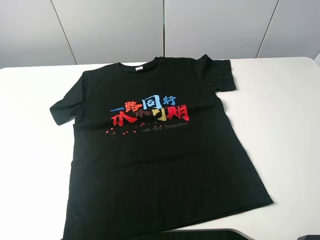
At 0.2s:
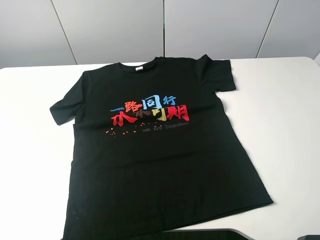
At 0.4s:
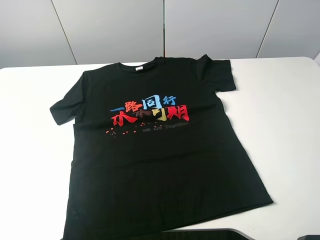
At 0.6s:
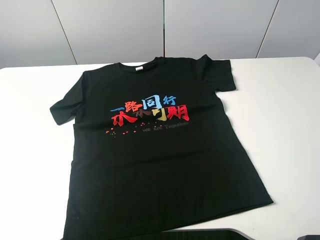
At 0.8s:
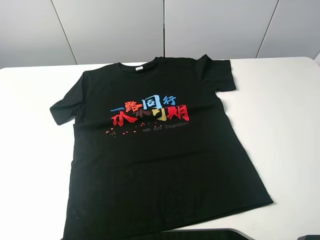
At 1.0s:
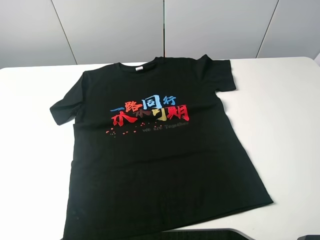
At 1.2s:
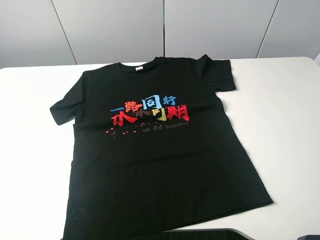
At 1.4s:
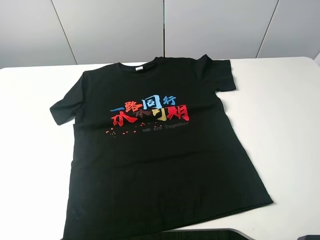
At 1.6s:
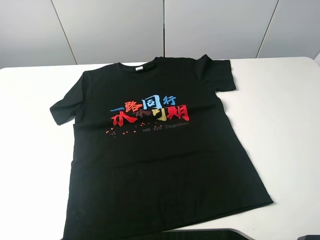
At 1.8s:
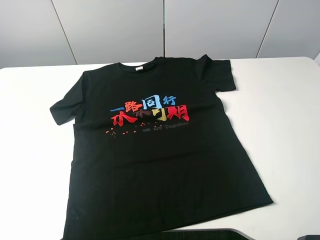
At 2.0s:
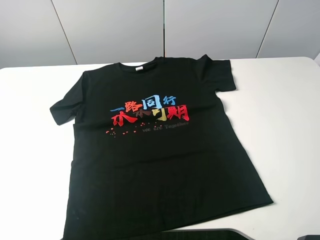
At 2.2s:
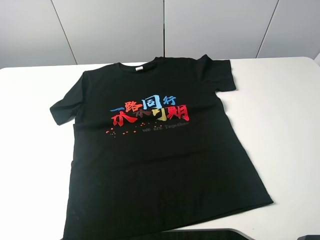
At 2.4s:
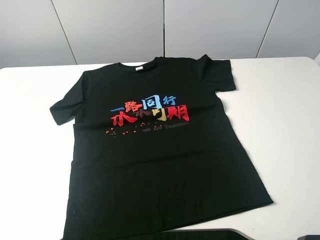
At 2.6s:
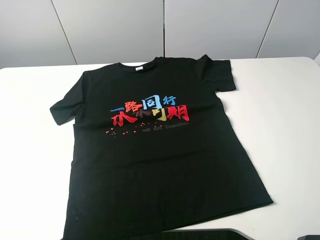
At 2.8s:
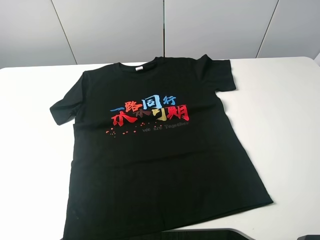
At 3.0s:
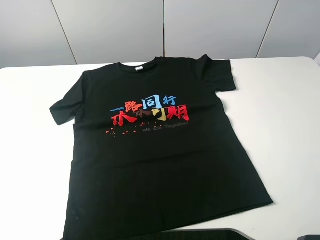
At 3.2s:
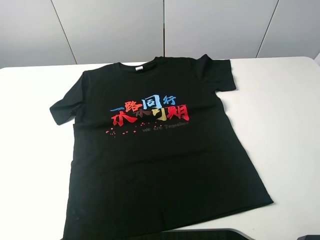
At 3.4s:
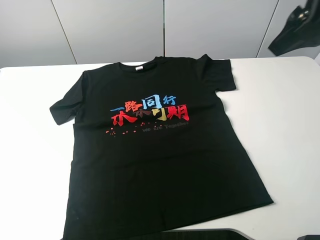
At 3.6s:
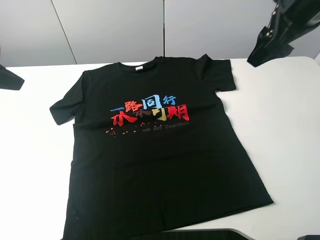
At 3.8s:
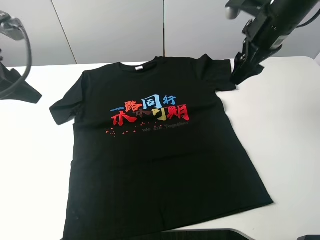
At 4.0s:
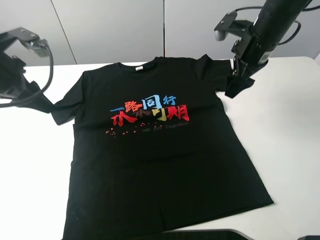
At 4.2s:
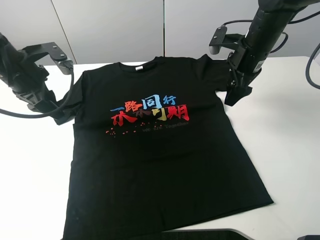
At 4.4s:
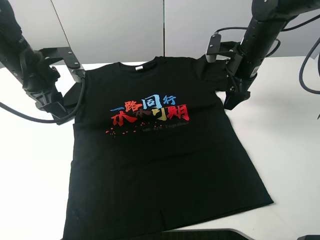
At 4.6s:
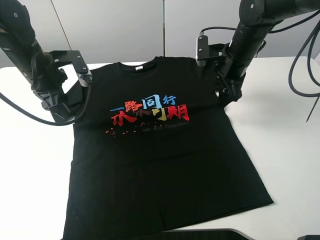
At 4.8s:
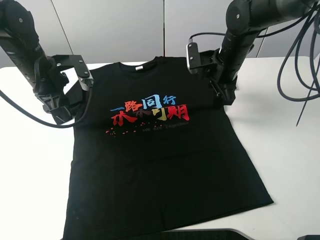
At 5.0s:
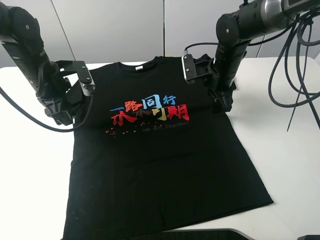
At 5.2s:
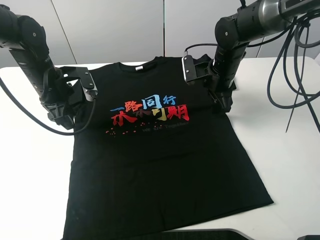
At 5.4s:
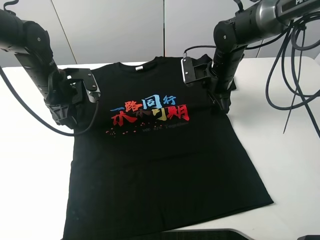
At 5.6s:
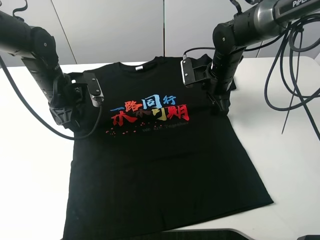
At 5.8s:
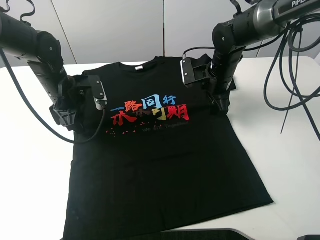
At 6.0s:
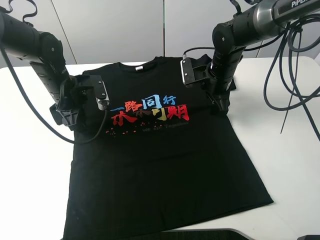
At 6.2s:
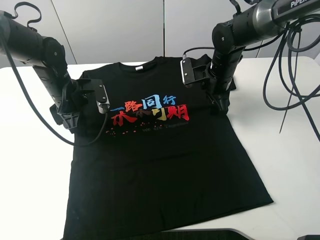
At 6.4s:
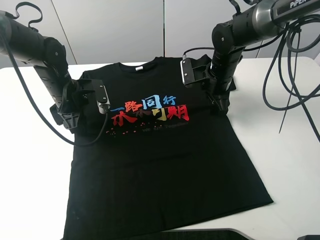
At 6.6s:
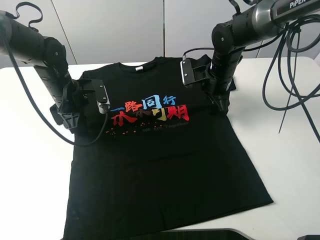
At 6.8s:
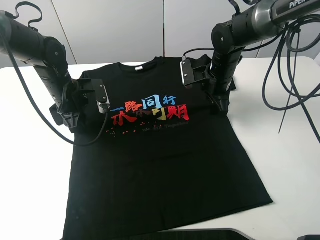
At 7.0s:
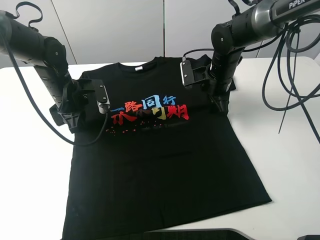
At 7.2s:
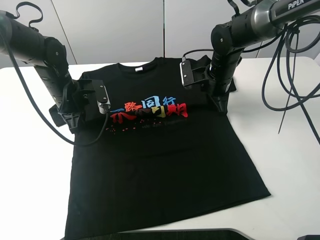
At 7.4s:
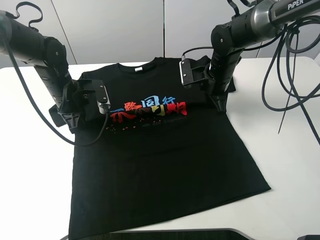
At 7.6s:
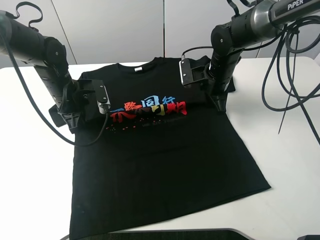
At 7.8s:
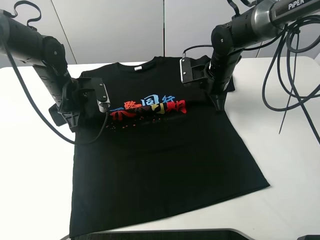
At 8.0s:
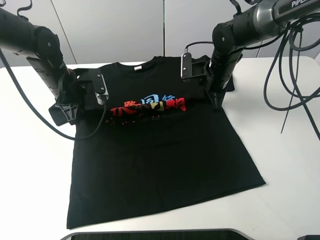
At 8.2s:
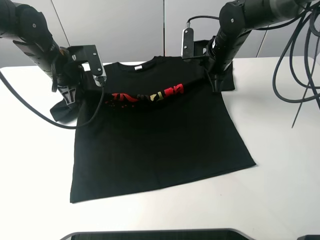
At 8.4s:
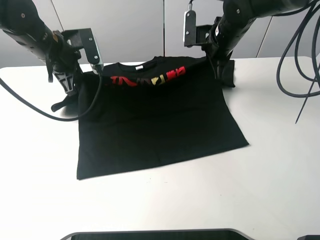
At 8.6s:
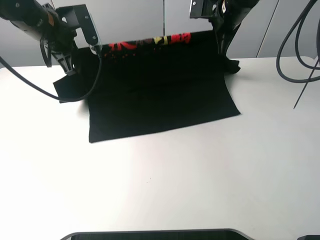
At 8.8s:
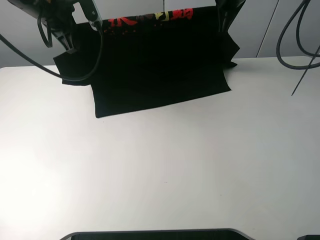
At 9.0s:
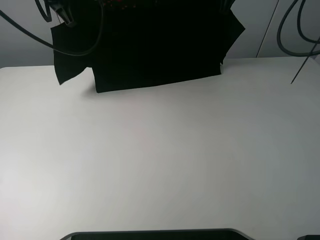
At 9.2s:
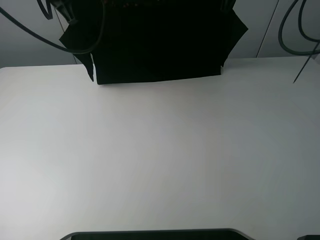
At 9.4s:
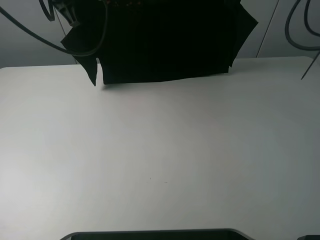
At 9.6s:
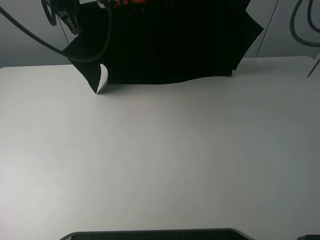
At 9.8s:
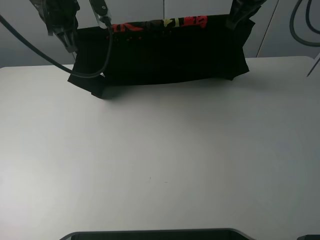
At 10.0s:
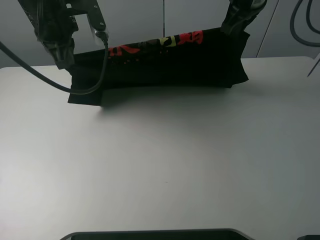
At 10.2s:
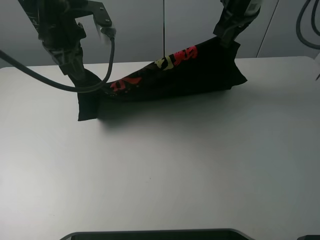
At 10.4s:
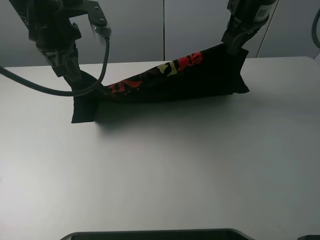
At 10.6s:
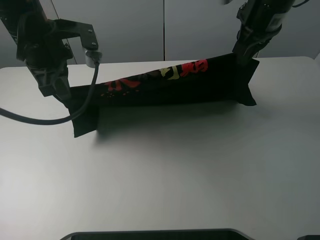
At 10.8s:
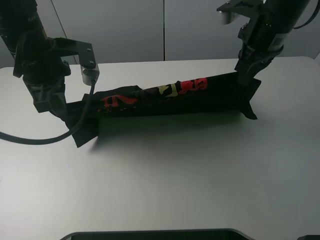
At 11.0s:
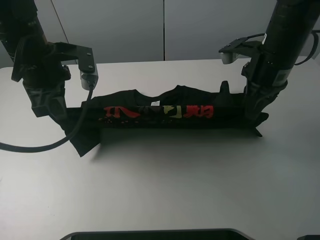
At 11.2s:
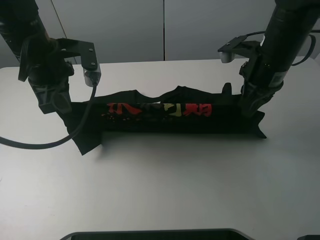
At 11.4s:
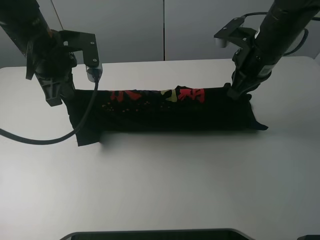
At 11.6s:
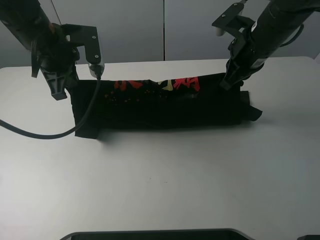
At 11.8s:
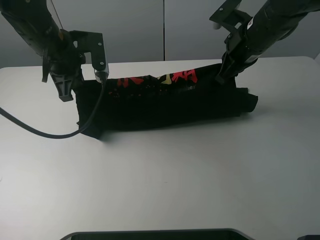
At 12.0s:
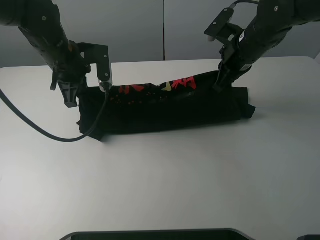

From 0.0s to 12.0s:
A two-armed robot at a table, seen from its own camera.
Task of the whole recording: fold the clothes on the table.
Step, from 0.0s to 7.0s: Lift the black T-shirt with the left gripper.
From 0.0s to 1.6s: Both grippers stay put.
From 3.0s to 4.4s: The grippers both shift forward and downward by some 30 cm.
From 4.4s to 6.0s: The two grippers go approximately 5 cm downward.
From 6.0s to 7.6s: The left gripper closes. Meanwhile the right gripper closes.
From 7.6s to 9.0s: The grippers both shift upward by roughly 20 cm.
From 9.0s to 10.4s: The two grippers go some 10 cm backward.
From 10.4s to 12.0s: Both grippers move downward, roughly 10 cm.

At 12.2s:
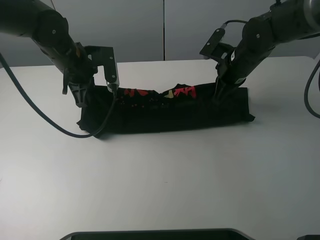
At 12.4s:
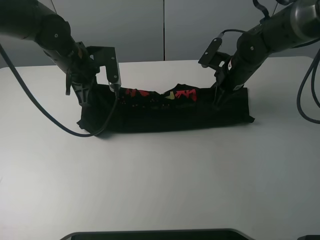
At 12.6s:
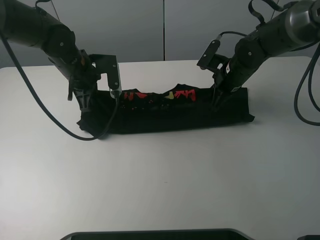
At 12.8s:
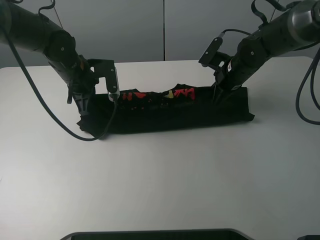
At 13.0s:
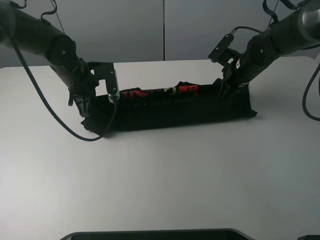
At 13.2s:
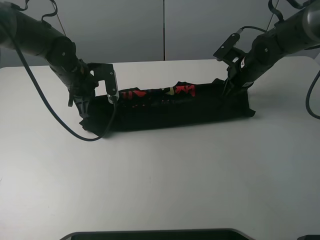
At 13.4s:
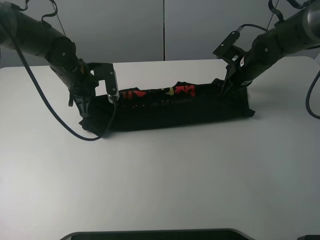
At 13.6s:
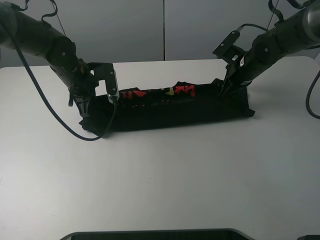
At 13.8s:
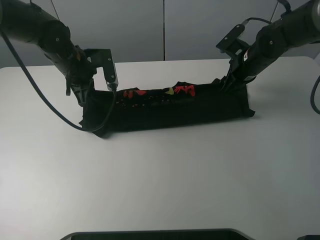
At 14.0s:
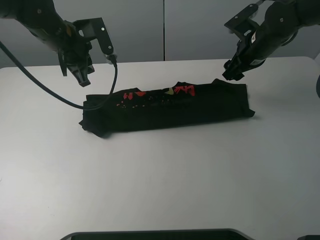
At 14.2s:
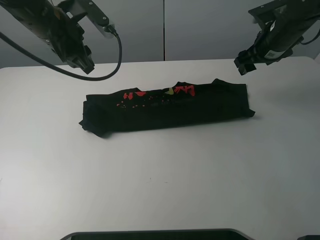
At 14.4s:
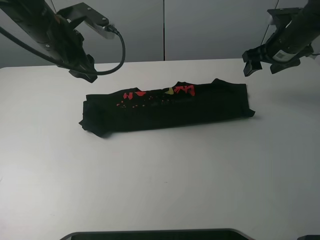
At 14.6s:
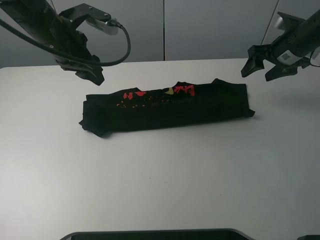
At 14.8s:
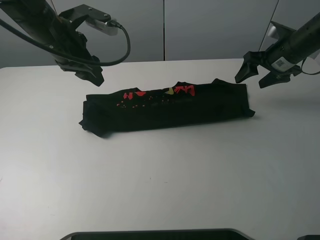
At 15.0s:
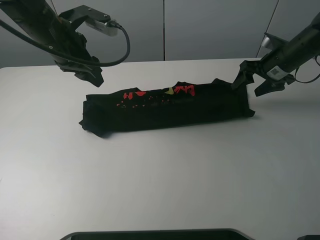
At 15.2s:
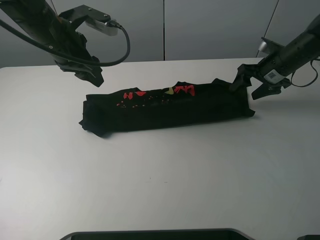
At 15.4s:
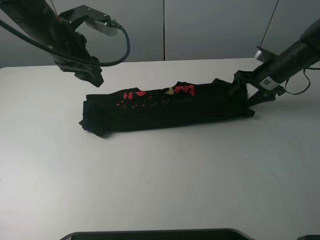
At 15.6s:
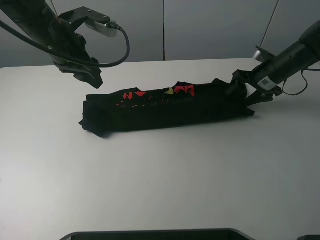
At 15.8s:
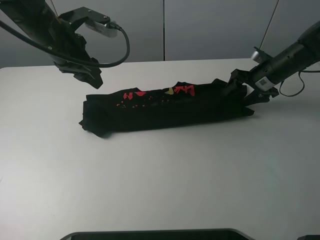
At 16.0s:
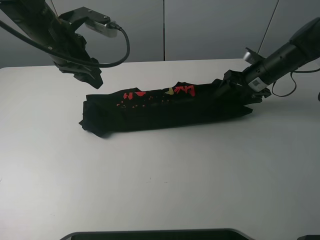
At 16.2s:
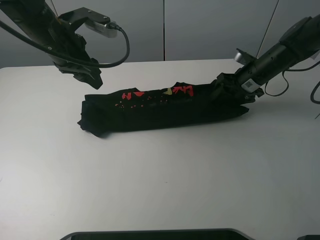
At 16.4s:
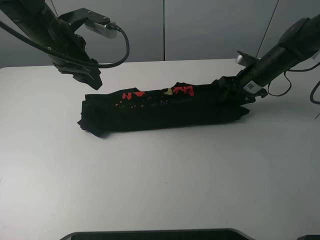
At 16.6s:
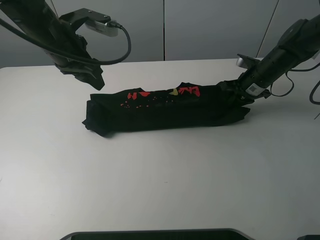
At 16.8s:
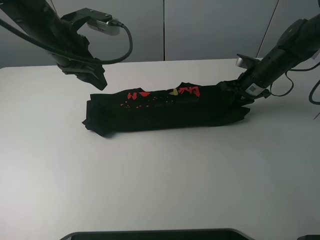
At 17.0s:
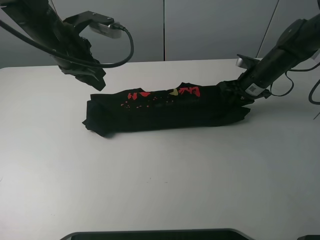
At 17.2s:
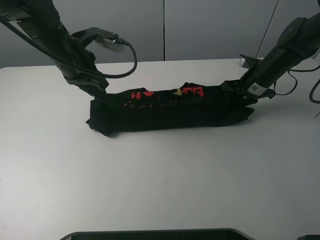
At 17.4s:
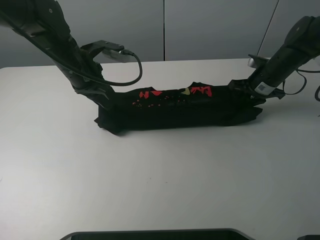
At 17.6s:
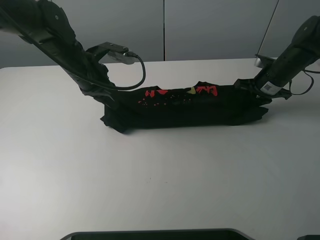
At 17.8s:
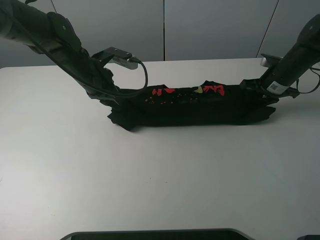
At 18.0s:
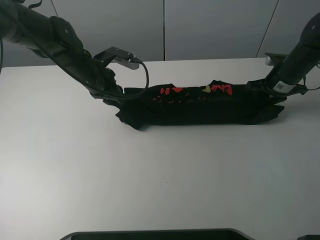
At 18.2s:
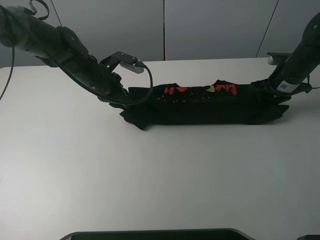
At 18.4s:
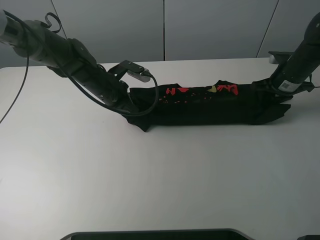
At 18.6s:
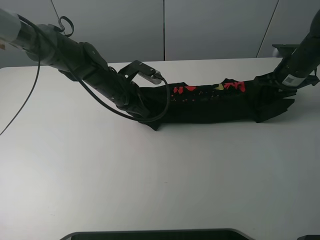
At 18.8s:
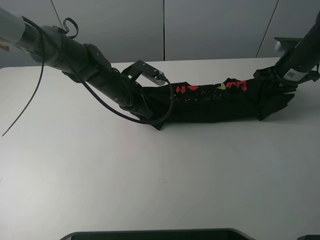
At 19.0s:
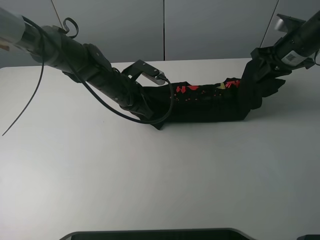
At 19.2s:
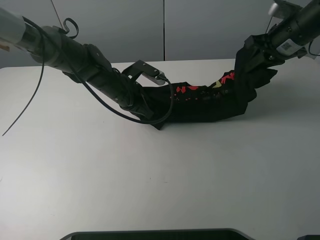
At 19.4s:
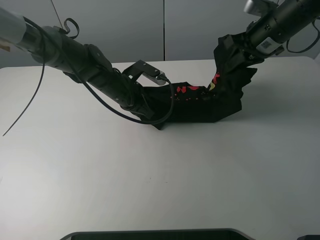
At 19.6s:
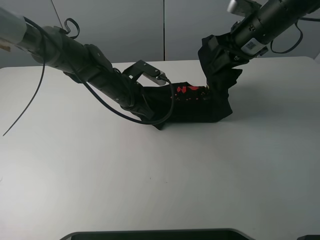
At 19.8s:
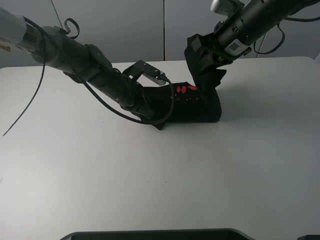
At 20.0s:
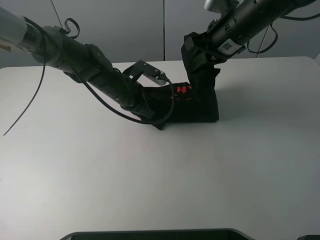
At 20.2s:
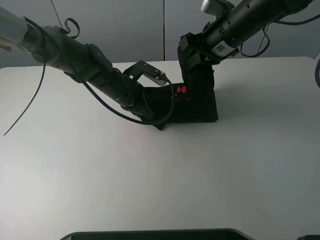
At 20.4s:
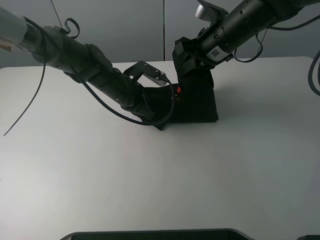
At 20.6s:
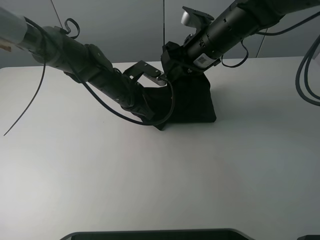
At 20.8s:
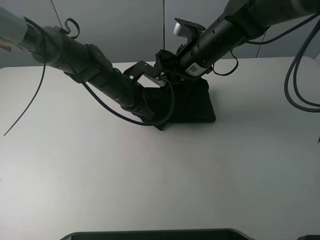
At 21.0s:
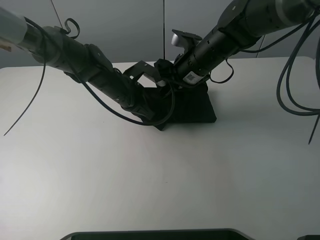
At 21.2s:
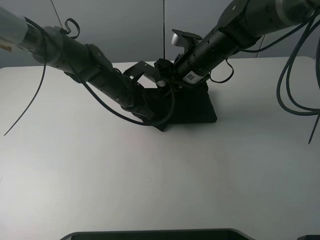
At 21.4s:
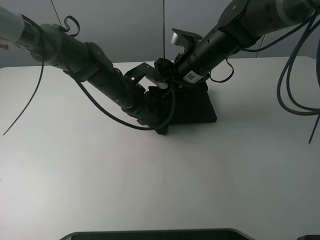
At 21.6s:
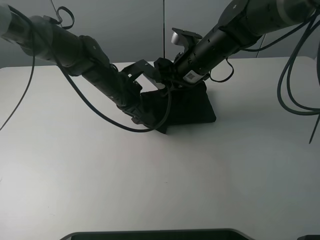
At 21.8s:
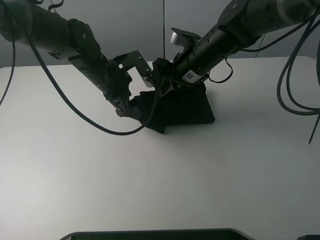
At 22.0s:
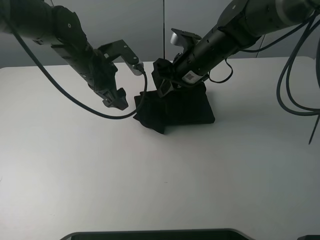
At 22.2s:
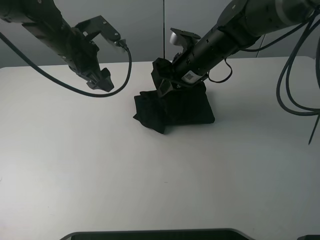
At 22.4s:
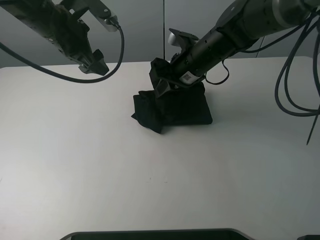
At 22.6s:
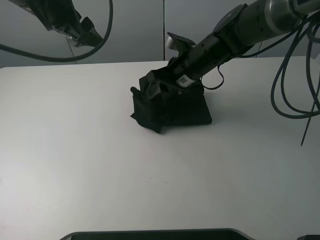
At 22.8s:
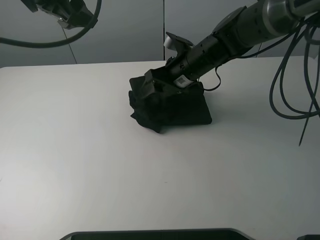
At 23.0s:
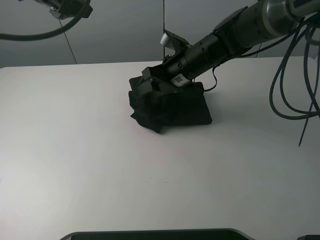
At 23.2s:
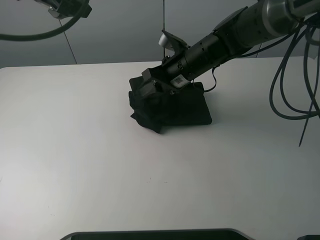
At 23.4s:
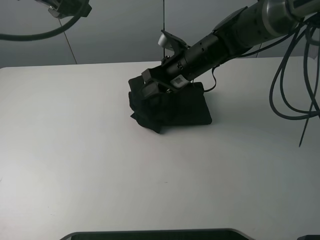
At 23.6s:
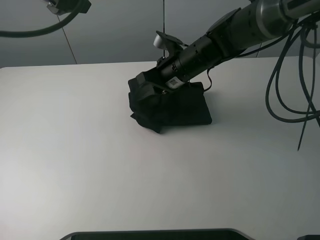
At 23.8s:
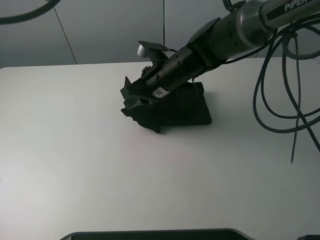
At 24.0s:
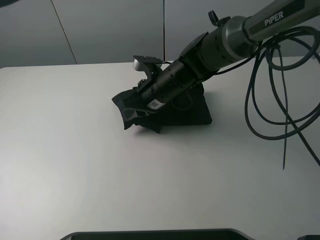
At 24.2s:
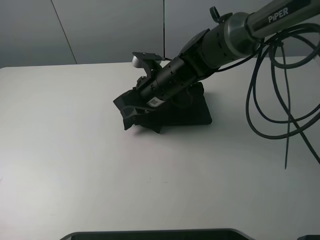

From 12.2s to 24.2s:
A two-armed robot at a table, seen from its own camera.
Task of the whole recording: fold the clothes on the table.
Step, from 13.8s to 16.6s: Grasp the black T-shirt with the right gripper.
From 12.2s to 13.8s: The right gripper opens its fingers.
From 13.8s to 15.2s: The left gripper heads upward, covering about 5 cm, and opens, while the right gripper heads to the right, covering about 5 cm.
From 15.2s to 16.6s: The right gripper closes.
From 16.6s to 18.2s: The left gripper shifts about 10 cm downward, and closes its fingers. Meanwhile the right gripper goes some 5 cm to the right.
From 18.2s to 19.8s: The right gripper heads to the left and upward, covering about 20 cm. The left gripper moves about 5 cm.
From 19.8s to 21.2s: The right gripper goes roughly 10 cm downward and to the left.
From 21.2s to 22.6s: The right gripper opens; the left gripper moves upward and to the left, about 25 cm, and opens up.
From 22.6s to 24.2s: The left gripper goes about 15 cm upward and backward. The right gripper is displaced to the left by approximately 5 cm, and closes.
